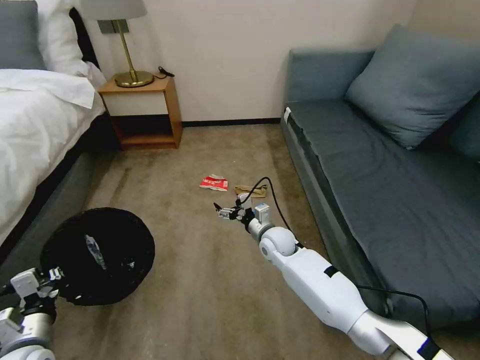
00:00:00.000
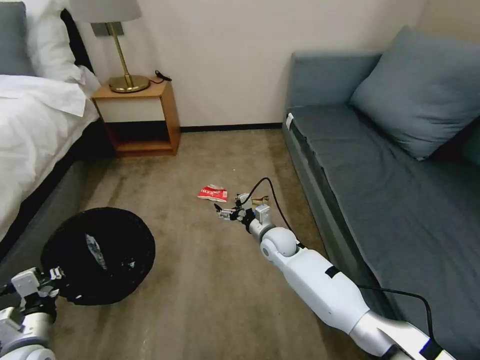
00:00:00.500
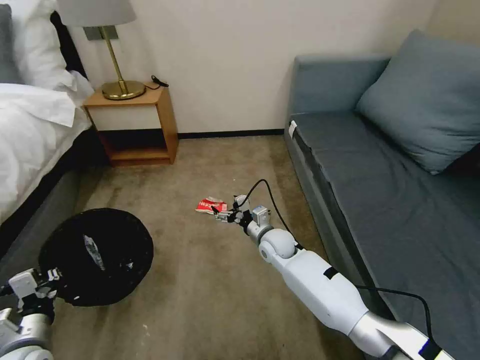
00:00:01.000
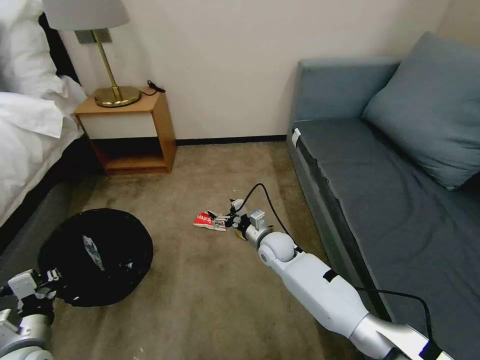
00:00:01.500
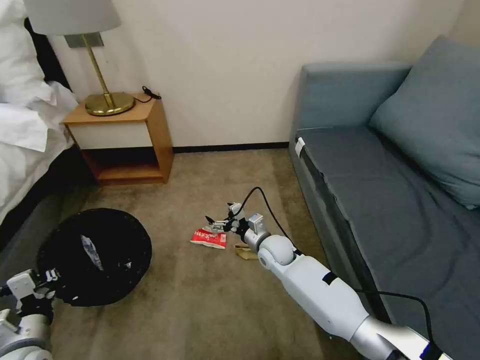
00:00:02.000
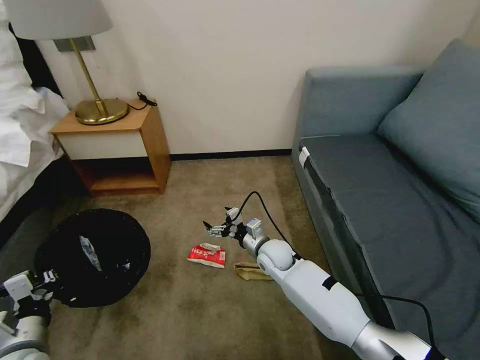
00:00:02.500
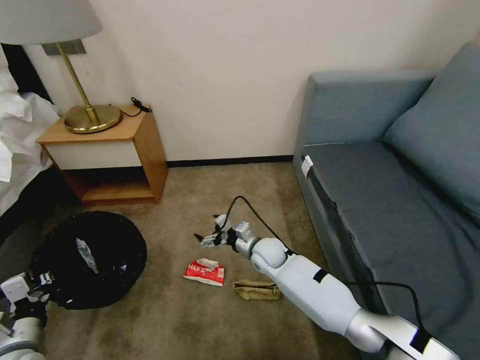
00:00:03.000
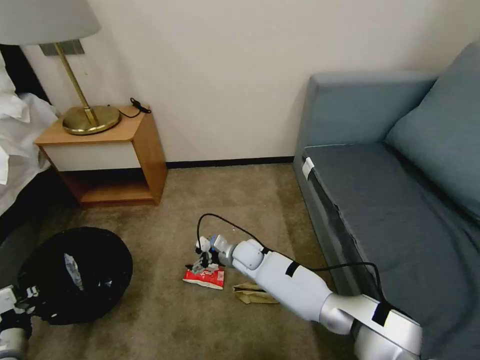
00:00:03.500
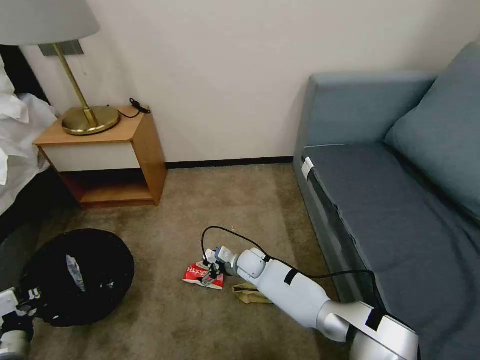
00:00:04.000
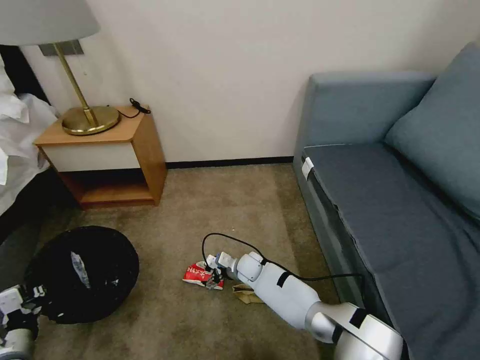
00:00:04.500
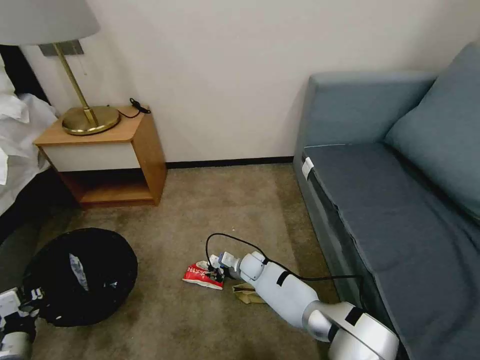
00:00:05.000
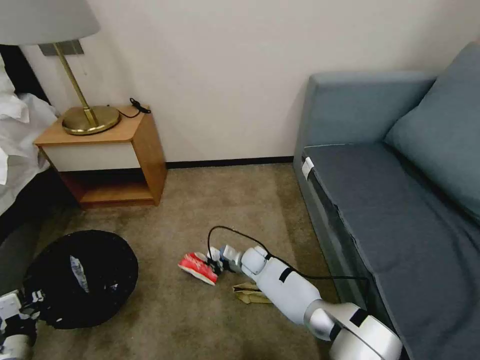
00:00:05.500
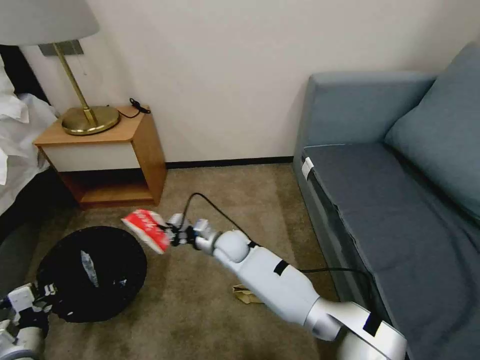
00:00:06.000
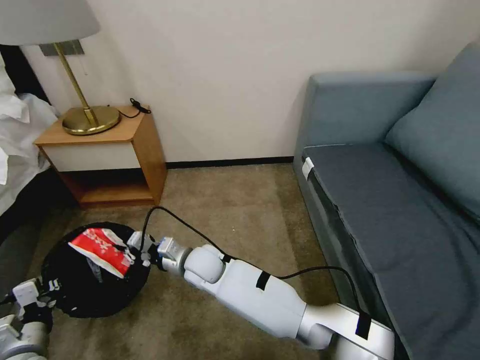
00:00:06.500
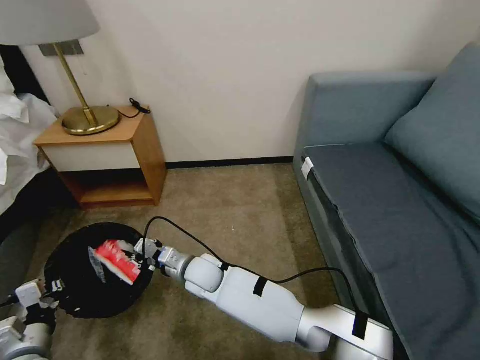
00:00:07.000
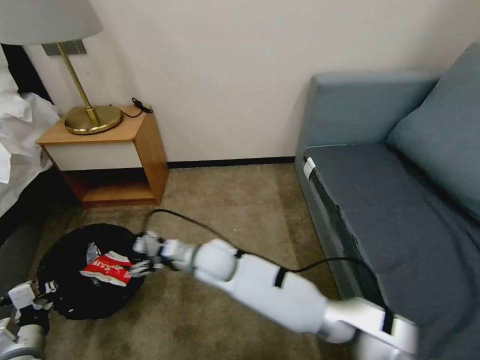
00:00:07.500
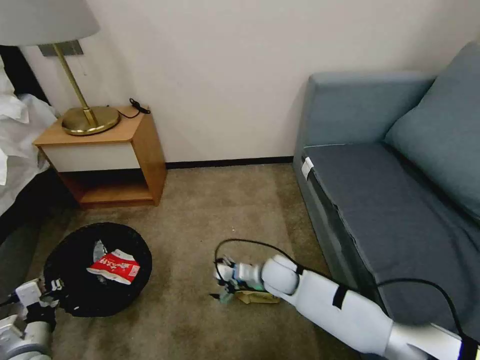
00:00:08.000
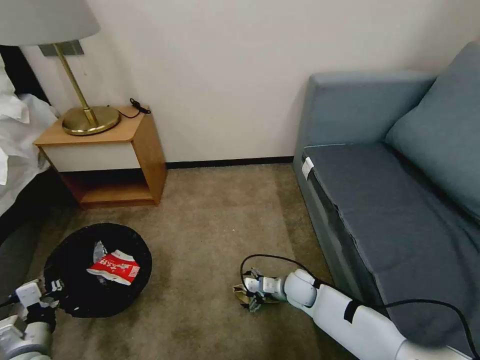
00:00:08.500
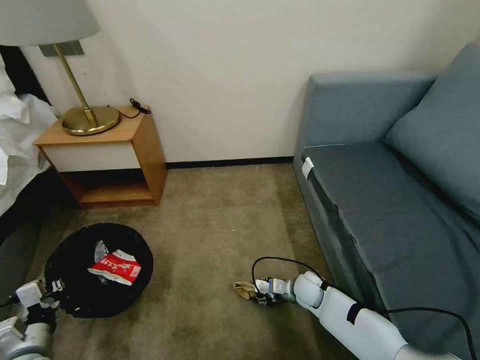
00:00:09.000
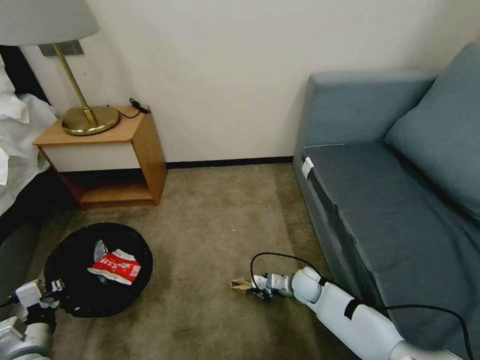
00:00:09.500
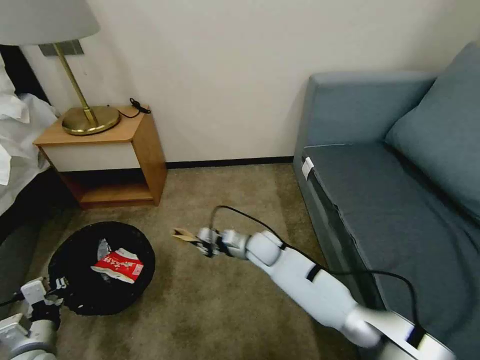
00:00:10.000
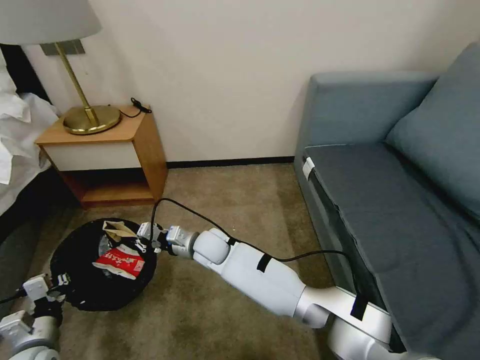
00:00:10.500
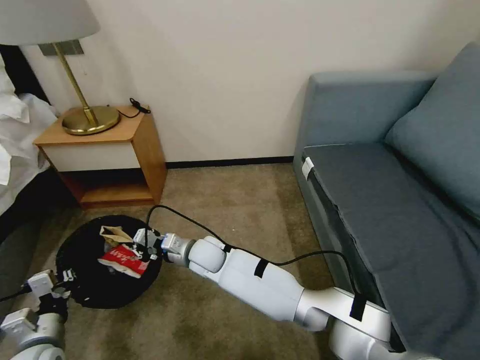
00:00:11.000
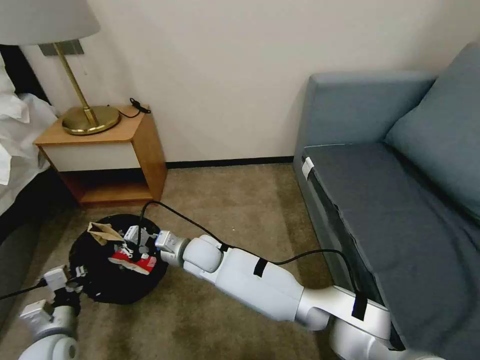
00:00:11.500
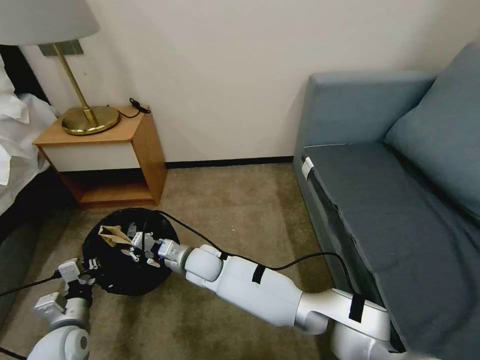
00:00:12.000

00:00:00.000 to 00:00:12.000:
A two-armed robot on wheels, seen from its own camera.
Task of the whole recording: Pick up the trash bin, then pick up the garbage on the floor and place it into the trash bin.
00:00:02.000 to 00:00:04.000: The right gripper shifts some 10 cm downward and to the left. Meanwhile the left gripper shifts some 5 cm to the left.
00:00:04.000 to 00:00:06.000: The right gripper moves upward and to the left, approximately 10 cm, and closes up.
00:00:06.000 to 00:00:08.000: The right gripper goes about 15 cm to the right and backward, and opens its fingers.
00:00:08.000 to 00:00:10.000: The right gripper travels forward by roughly 5 cm, moves some 10 cm to the right and comes back, and closes up.
00:00:10.000 to 00:00:12.000: The left gripper ends up some 5 cm from where it was. The right gripper moves to the left, approximately 15 cm.

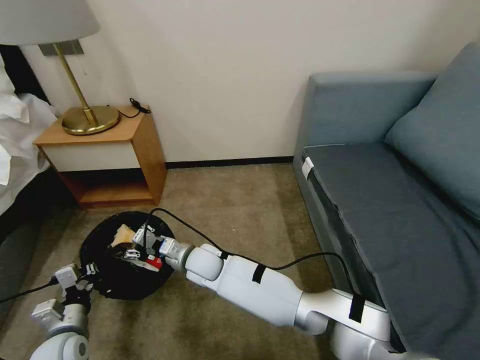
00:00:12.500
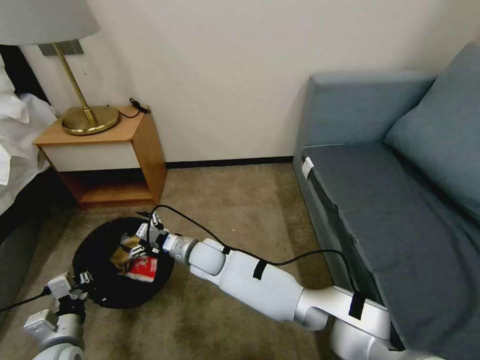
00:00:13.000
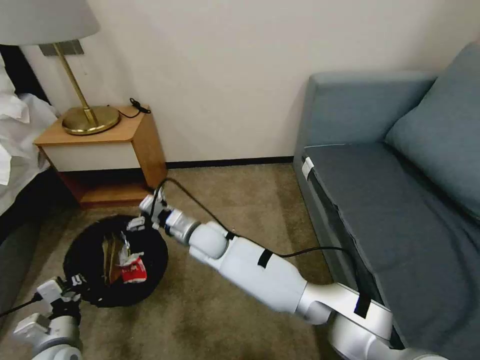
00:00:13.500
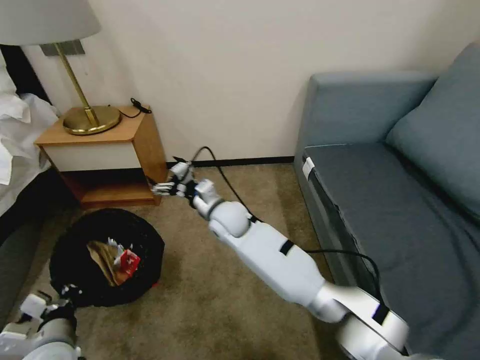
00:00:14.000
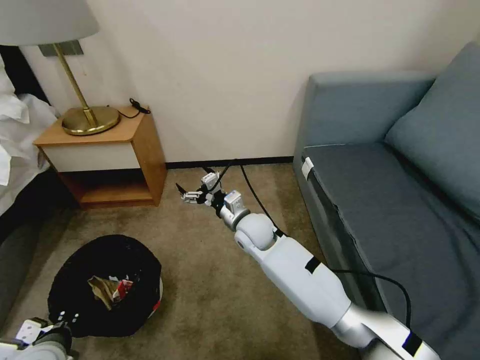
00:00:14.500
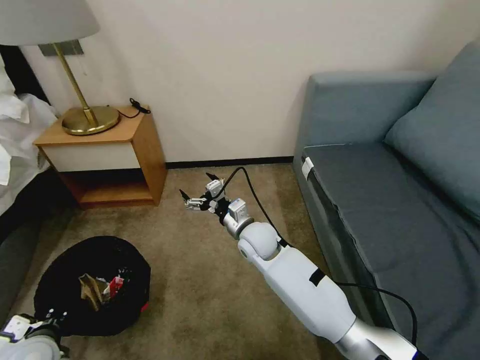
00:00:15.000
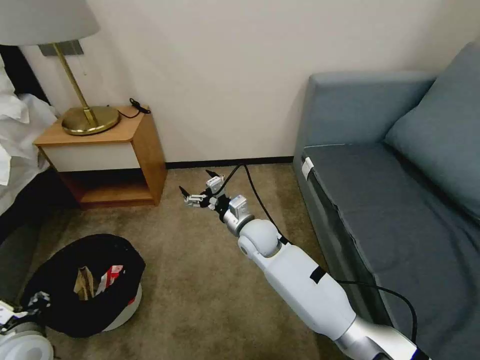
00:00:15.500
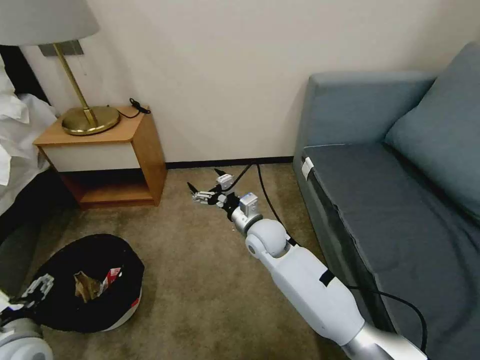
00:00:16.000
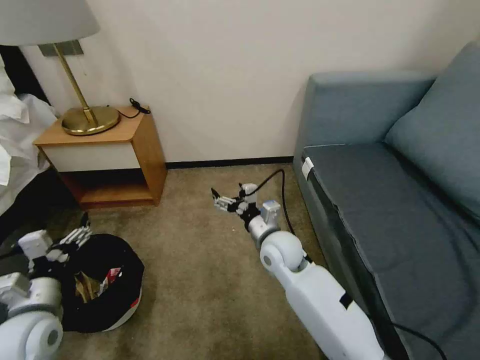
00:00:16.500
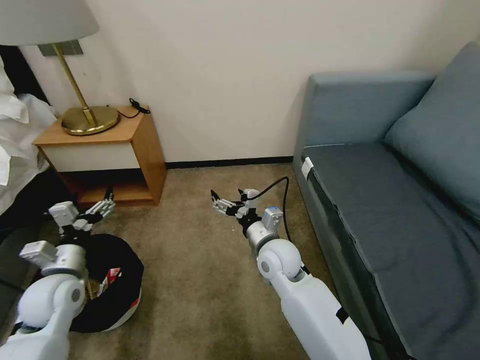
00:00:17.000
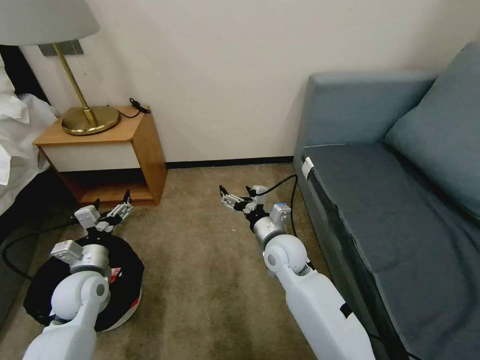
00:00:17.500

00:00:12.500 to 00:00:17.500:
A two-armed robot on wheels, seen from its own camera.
Task of the whole recording: Pick up the trash bin, then pick up the garbage on the floor and place it into the trash bin.
00:00:12.500 to 00:00:15.000: The right gripper shifts about 15 cm to the right, and opens its fingers; the left gripper travels upward by about 10 cm.
00:00:15.000 to 00:00:17.500: The left gripper goes approximately 15 cm forward, and opens, while the right gripper moves to the right, some 5 cm.
